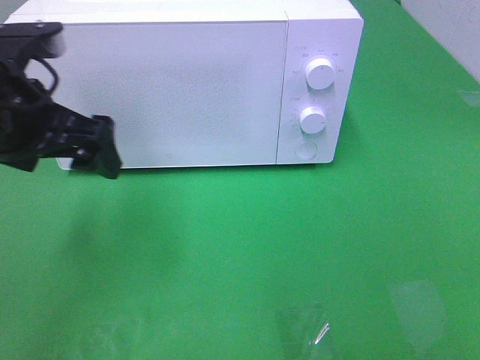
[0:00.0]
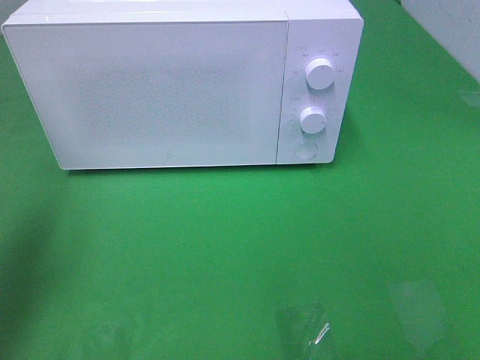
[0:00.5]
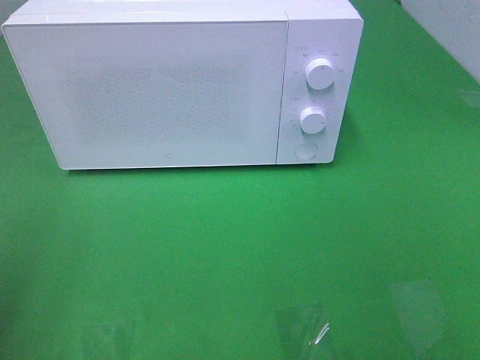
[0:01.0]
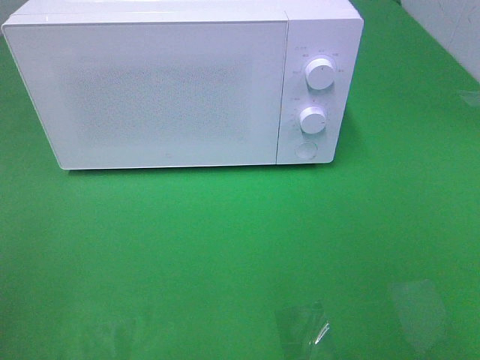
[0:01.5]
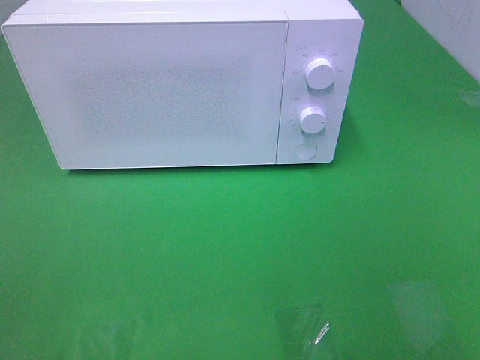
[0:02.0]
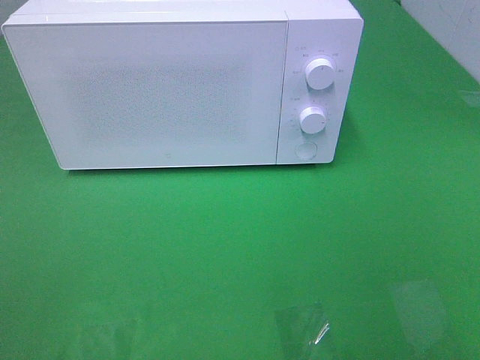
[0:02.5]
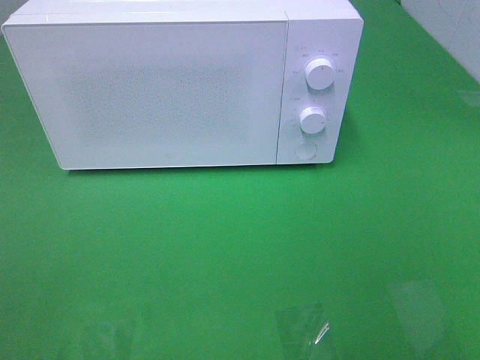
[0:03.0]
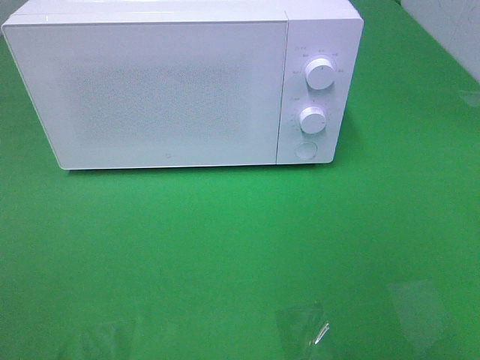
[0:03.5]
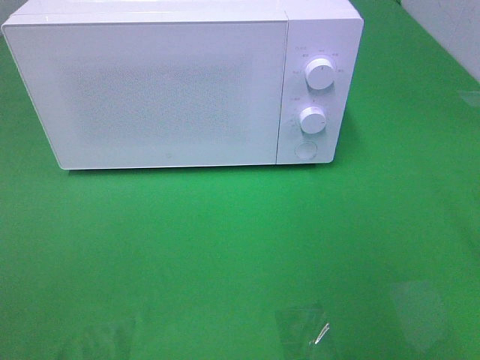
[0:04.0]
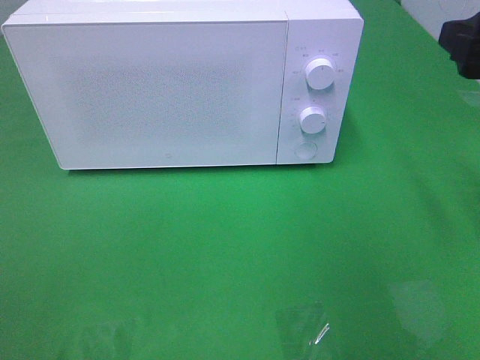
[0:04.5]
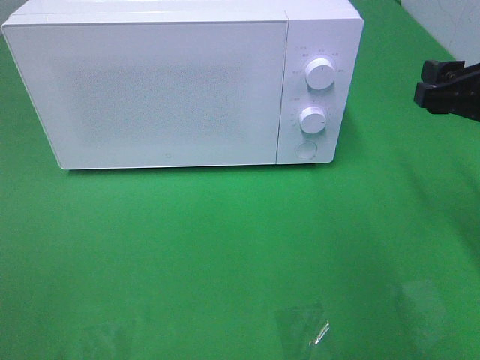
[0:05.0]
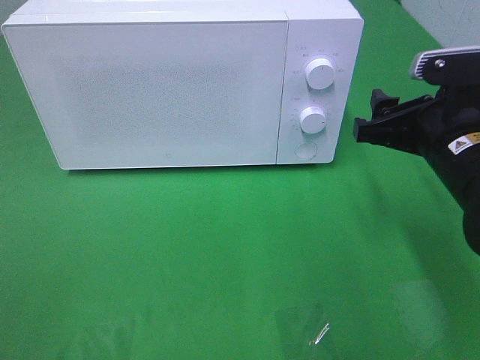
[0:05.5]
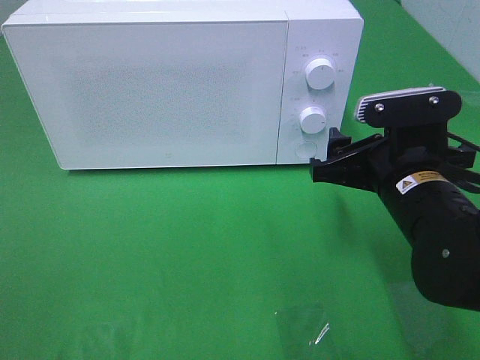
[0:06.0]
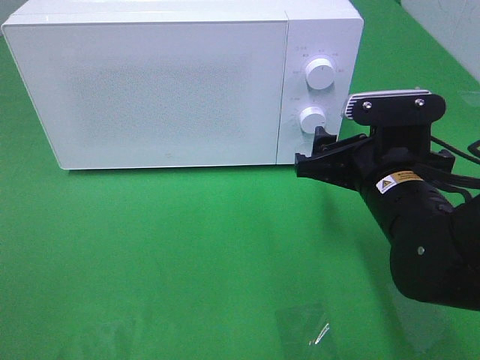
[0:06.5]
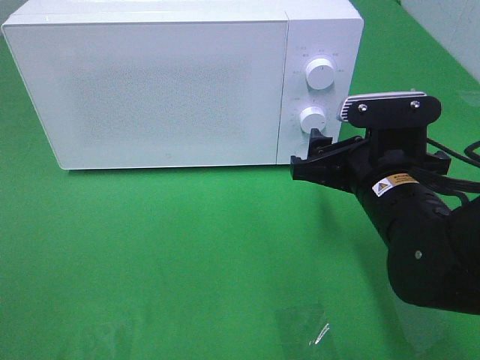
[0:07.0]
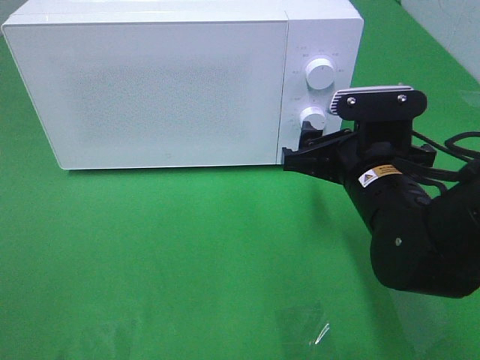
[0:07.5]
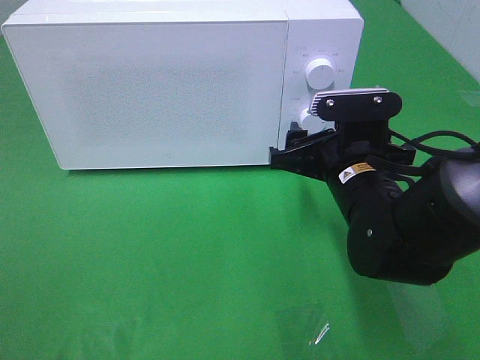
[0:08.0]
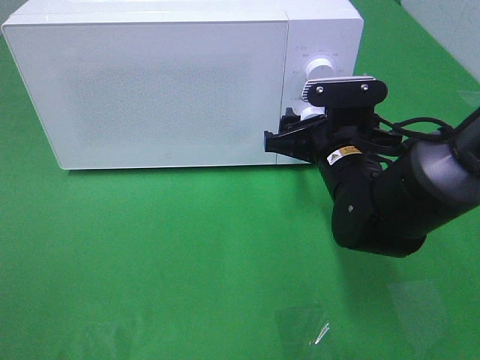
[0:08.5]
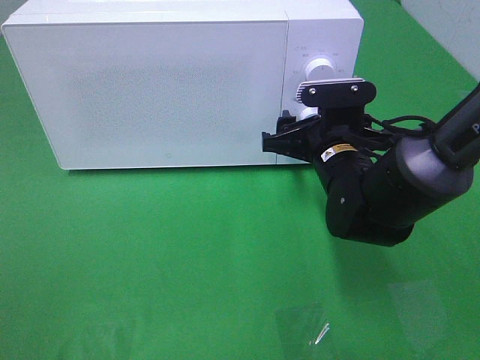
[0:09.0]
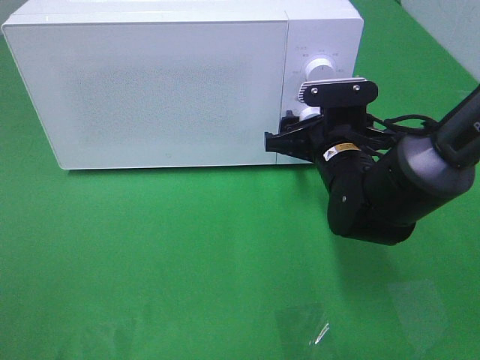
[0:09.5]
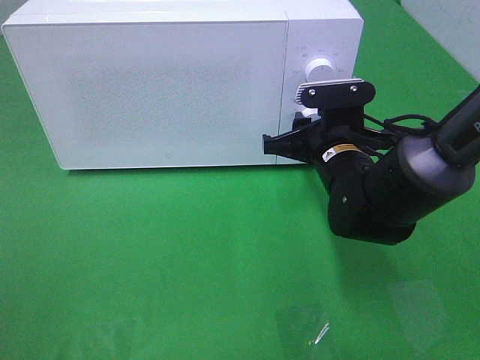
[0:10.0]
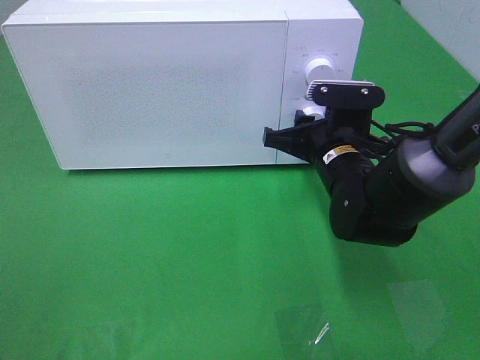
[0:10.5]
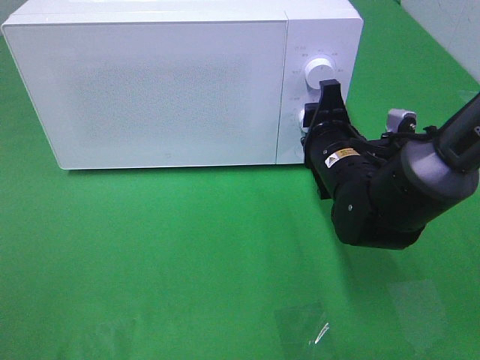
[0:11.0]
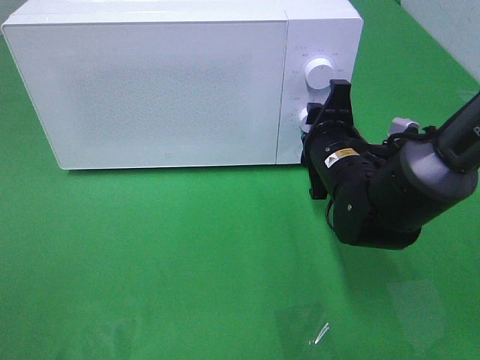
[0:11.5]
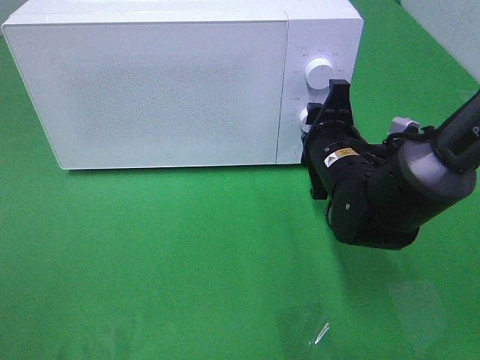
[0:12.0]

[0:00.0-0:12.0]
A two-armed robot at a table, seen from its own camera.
Task of the whole recording: Heat the burger.
0:00.0 to 0:02.0: The left gripper shifts about 30 cm backward and to the left.
0:04.0 to 0:06.0: The right gripper heads downward, to the left and forward, covering about 20 cm.
0:06.0 to 0:08.0: The right gripper shifts by roughly 5 cm.
0:08.0 to 0:10.0: The right gripper is displaced forward by roughly 5 cm, and closes its fingers.

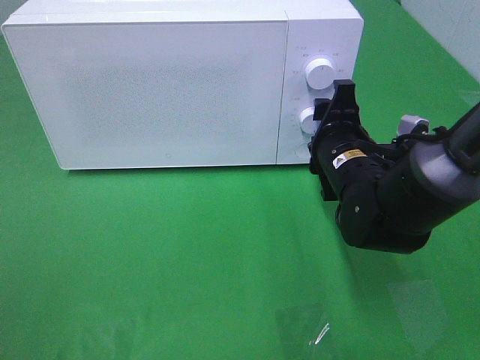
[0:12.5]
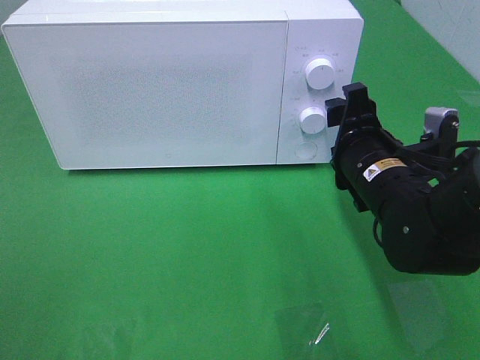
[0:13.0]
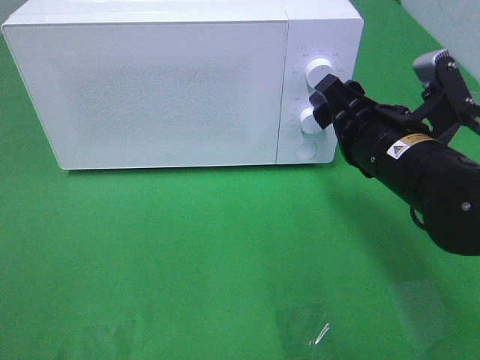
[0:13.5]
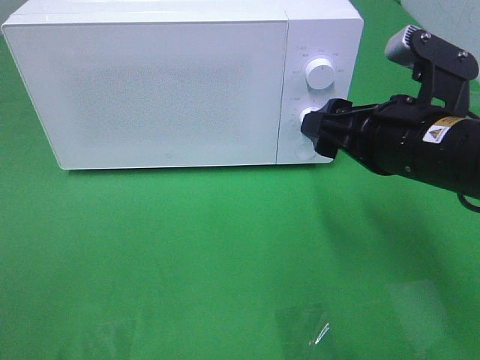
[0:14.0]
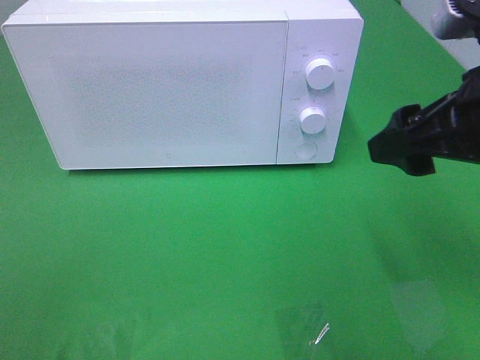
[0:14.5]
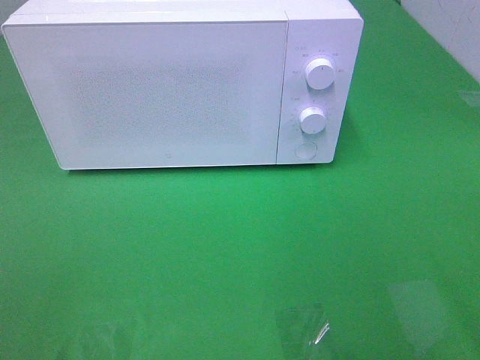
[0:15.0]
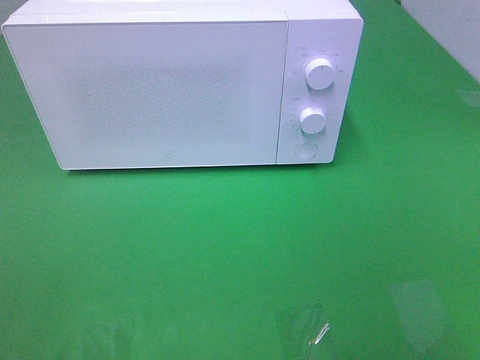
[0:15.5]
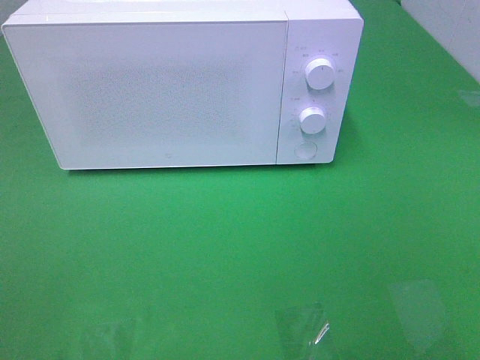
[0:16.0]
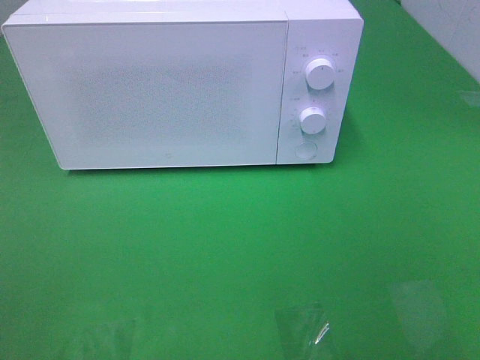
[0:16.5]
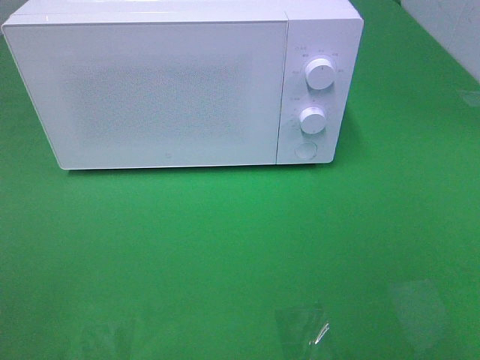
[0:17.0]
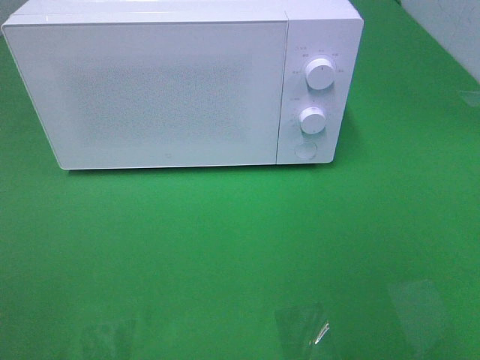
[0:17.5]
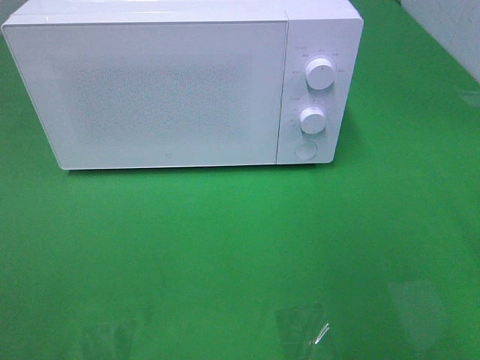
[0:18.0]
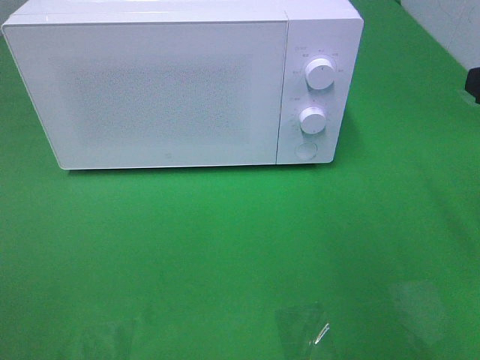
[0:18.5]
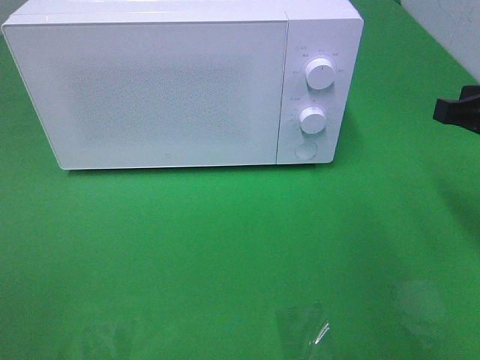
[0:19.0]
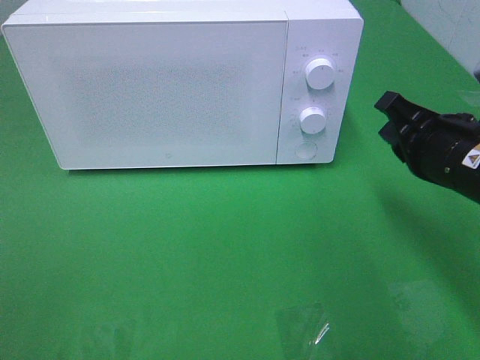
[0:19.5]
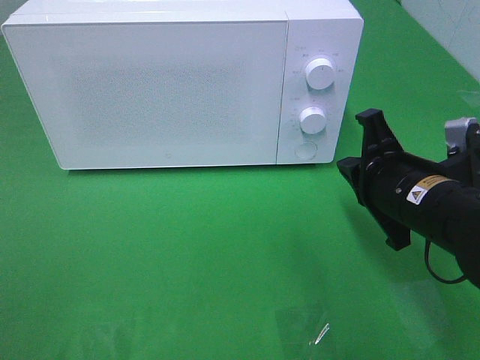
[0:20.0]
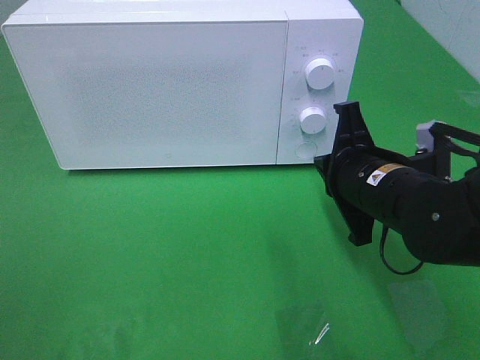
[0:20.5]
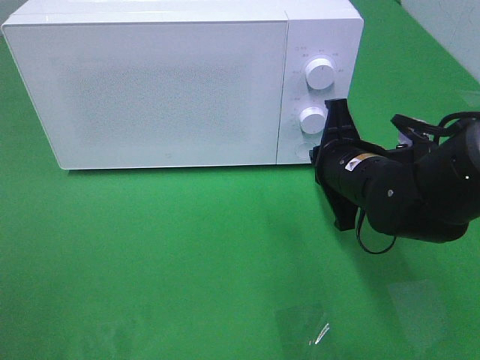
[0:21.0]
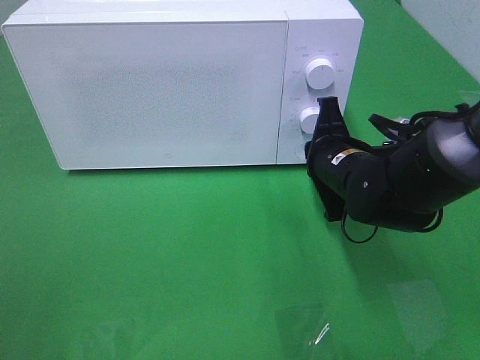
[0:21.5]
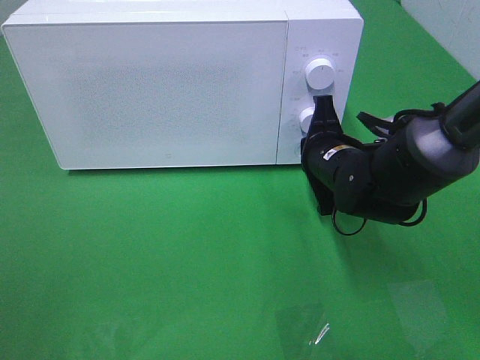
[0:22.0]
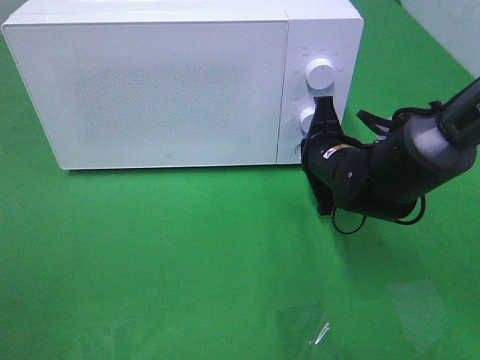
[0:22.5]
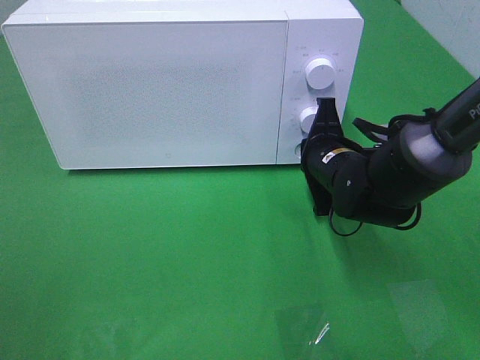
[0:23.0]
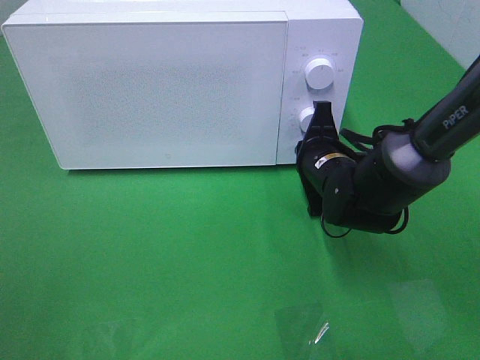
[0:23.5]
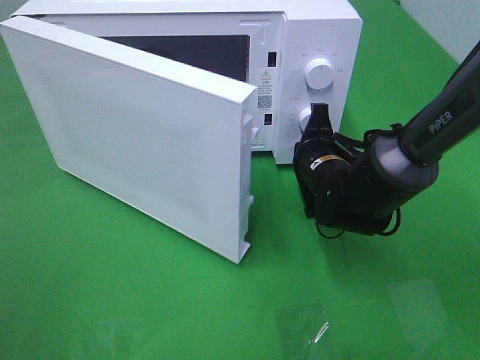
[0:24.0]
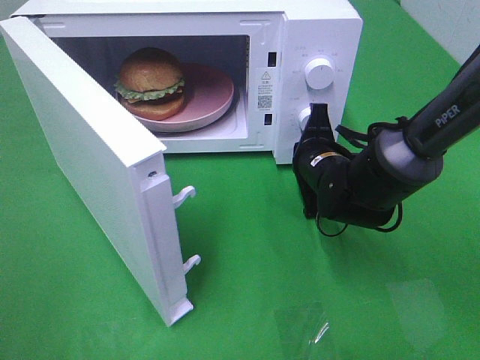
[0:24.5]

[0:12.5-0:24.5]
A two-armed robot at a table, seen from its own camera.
Task of the whole recording: Heat the burger.
0:12.5 to 0:14.5: The right gripper is displaced upward, backward and to the right by some 20 cm.
0:14.5 to 0:16.5: The right gripper moves backward, roughly 20 cm.
0:18.5 to 0:20.5: The right gripper heads to the left and downward, covering approximately 20 cm, and closes.
0:20.5 to 0:22.5: The right gripper is displaced forward by some 10 cm.

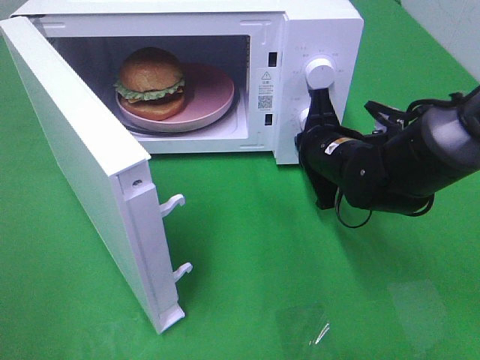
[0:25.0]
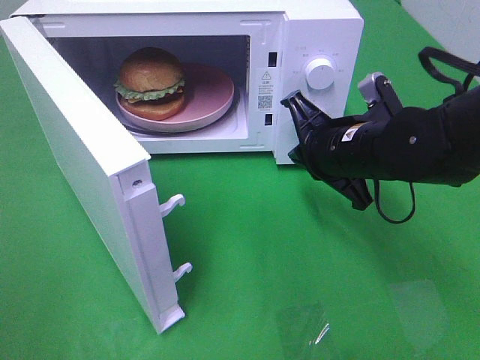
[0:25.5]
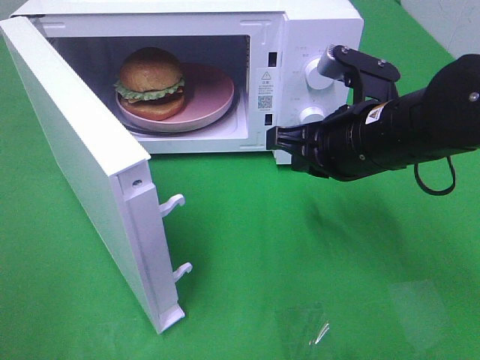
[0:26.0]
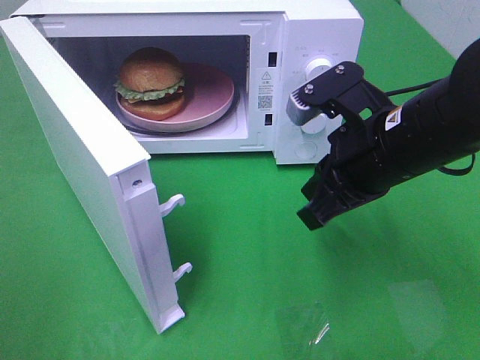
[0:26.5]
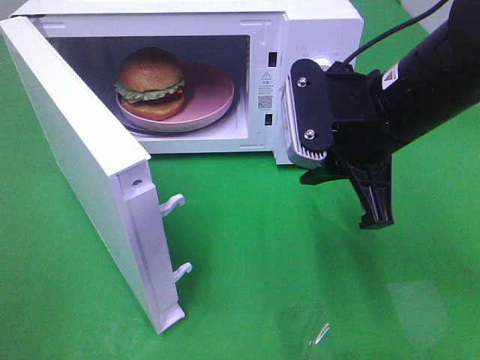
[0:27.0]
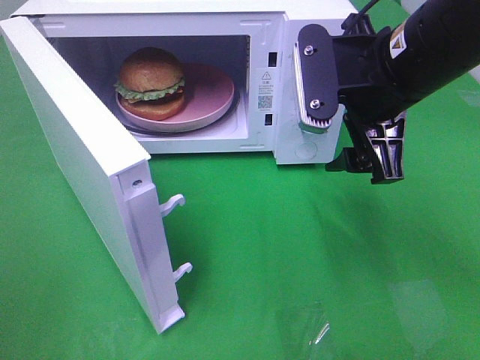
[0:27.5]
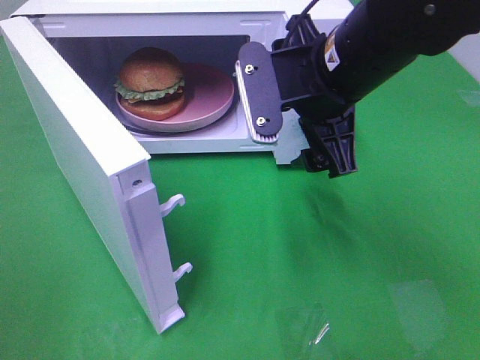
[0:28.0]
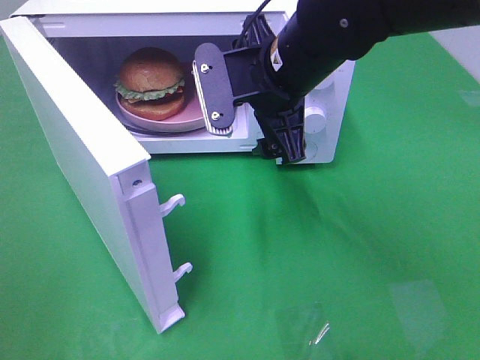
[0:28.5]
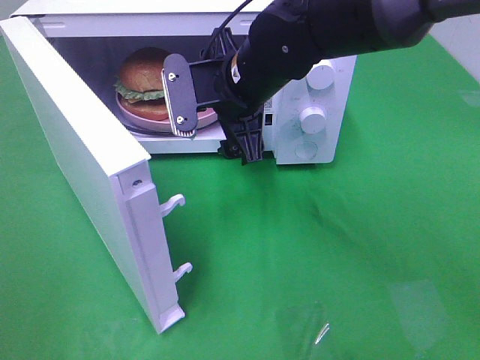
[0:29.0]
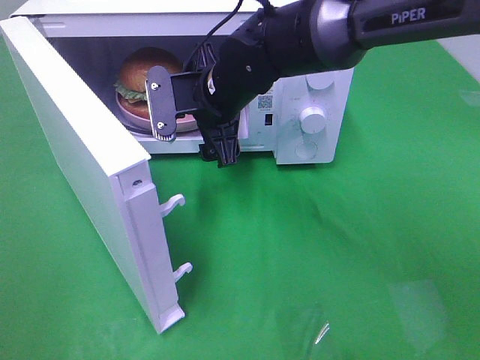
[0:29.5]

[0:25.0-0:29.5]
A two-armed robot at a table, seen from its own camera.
Task of the whole recording: Heat the burger.
0:25.0 to 0:27.0: The right gripper goes some 15 cm upward and backward.
0:27.0 to 0:29.5: The right gripper goes about 20 cm to the left, forward and downward, and opens its fingers.
